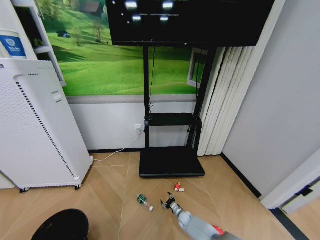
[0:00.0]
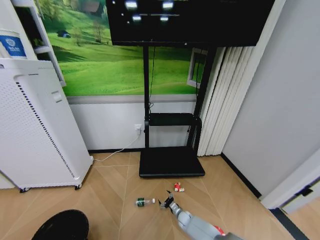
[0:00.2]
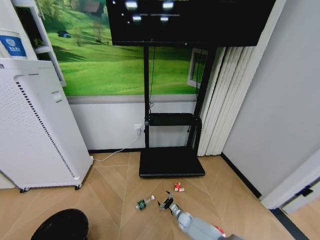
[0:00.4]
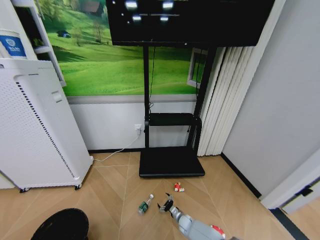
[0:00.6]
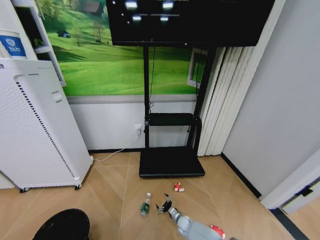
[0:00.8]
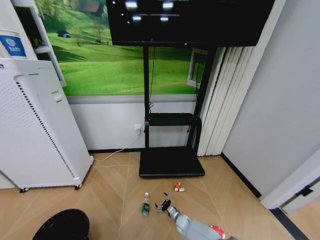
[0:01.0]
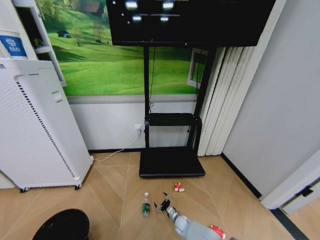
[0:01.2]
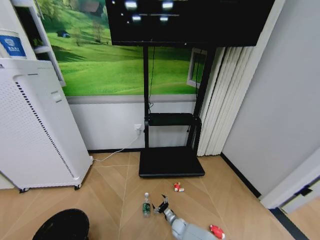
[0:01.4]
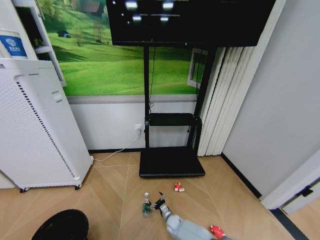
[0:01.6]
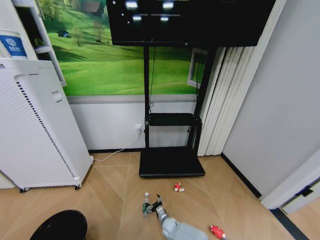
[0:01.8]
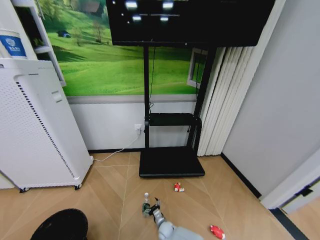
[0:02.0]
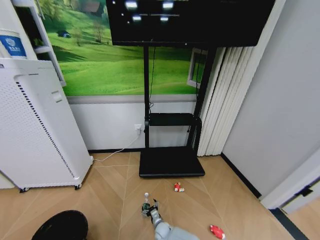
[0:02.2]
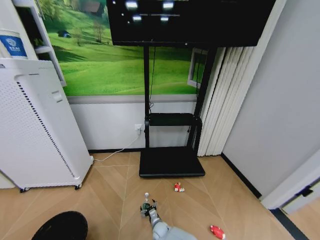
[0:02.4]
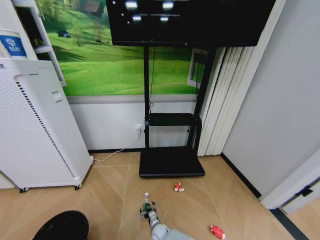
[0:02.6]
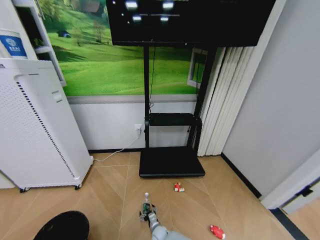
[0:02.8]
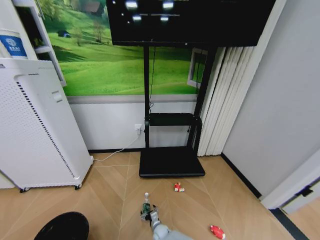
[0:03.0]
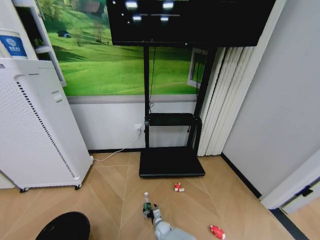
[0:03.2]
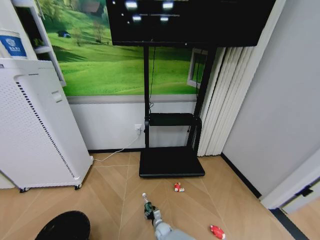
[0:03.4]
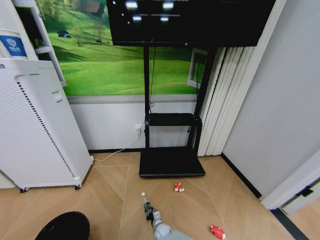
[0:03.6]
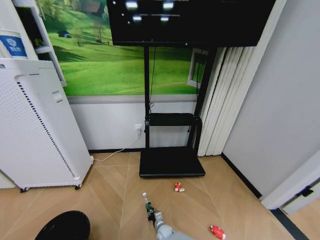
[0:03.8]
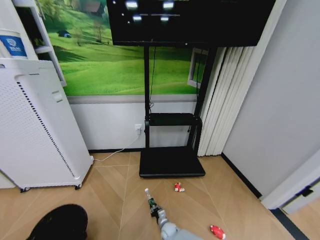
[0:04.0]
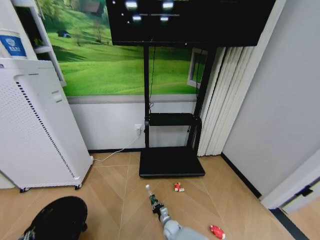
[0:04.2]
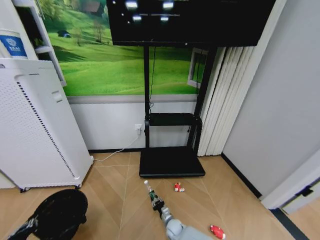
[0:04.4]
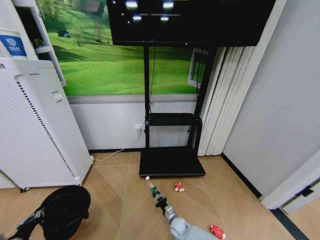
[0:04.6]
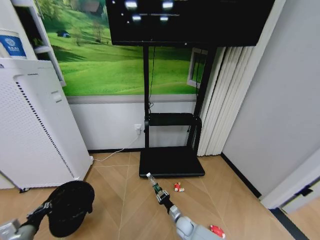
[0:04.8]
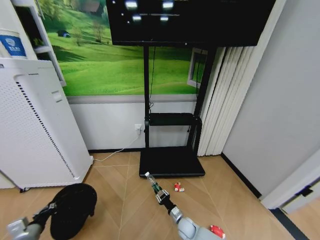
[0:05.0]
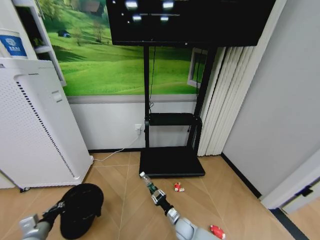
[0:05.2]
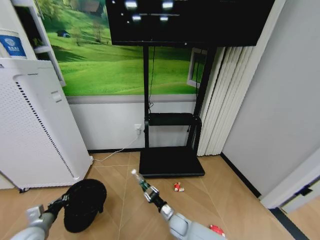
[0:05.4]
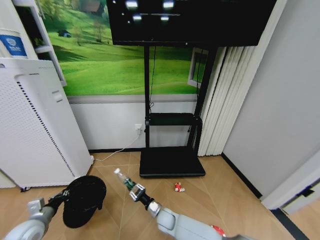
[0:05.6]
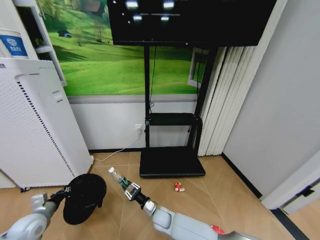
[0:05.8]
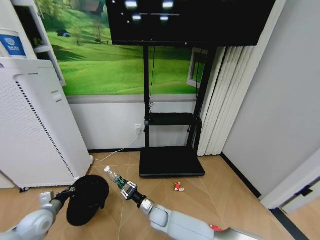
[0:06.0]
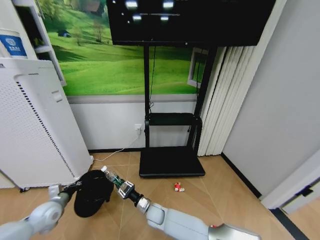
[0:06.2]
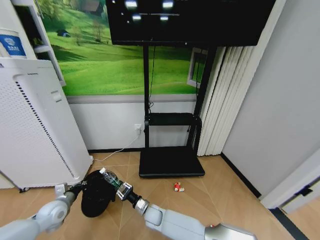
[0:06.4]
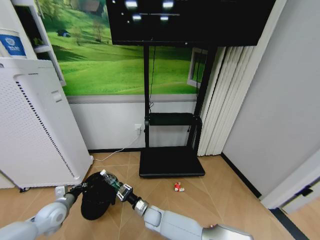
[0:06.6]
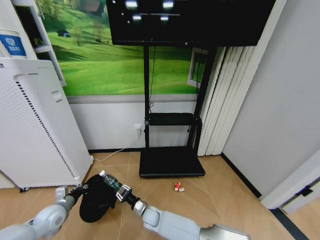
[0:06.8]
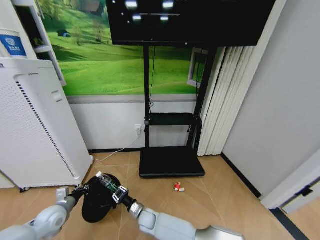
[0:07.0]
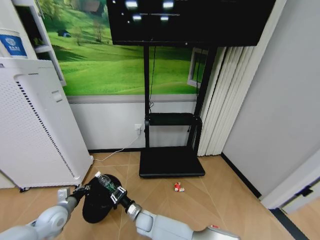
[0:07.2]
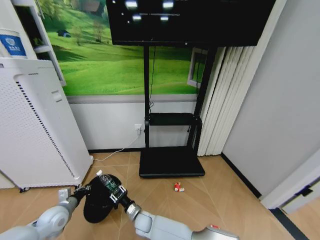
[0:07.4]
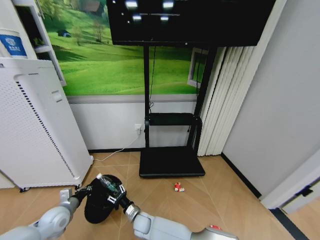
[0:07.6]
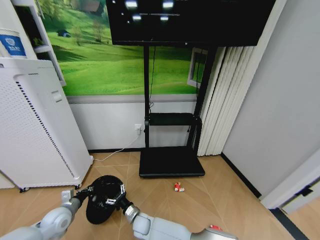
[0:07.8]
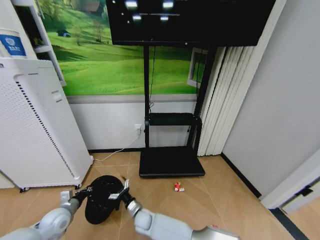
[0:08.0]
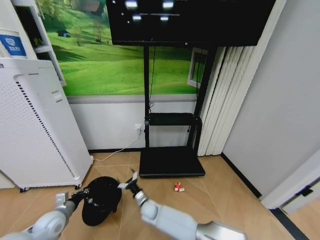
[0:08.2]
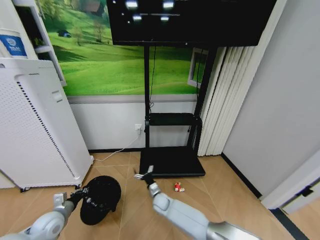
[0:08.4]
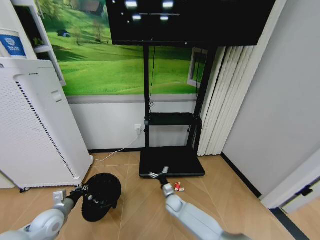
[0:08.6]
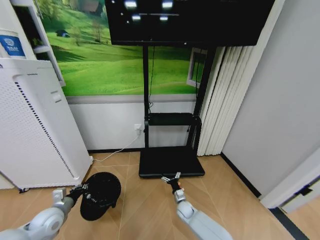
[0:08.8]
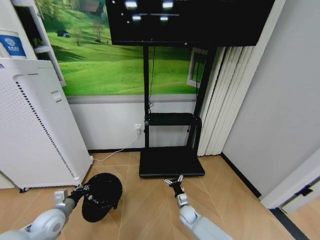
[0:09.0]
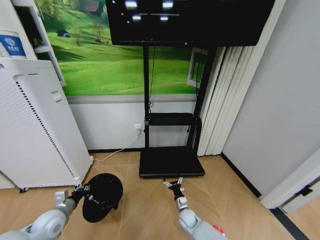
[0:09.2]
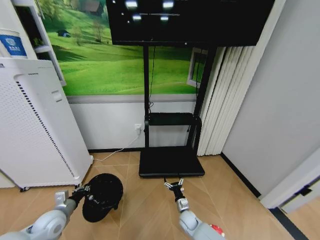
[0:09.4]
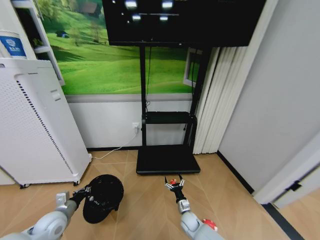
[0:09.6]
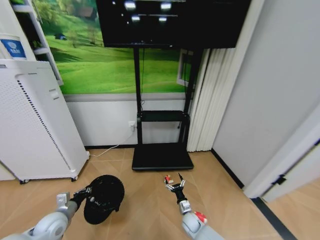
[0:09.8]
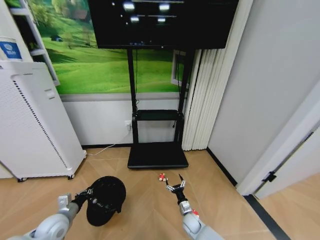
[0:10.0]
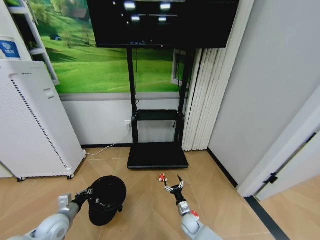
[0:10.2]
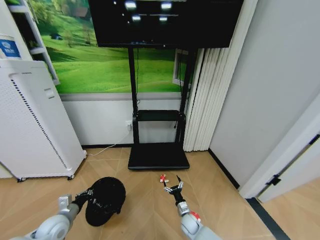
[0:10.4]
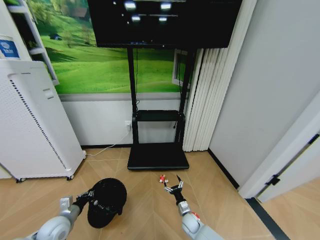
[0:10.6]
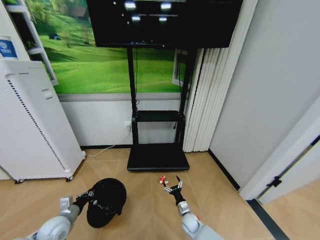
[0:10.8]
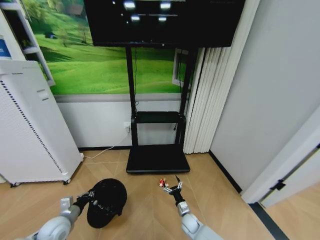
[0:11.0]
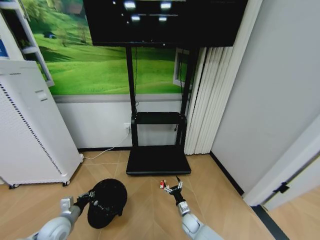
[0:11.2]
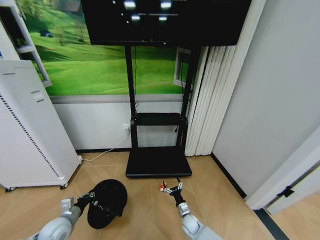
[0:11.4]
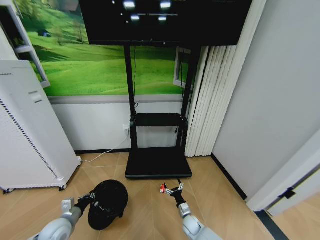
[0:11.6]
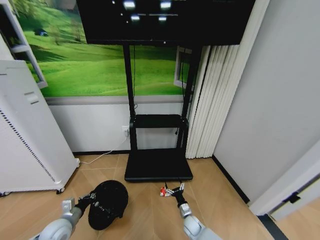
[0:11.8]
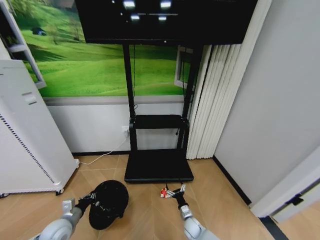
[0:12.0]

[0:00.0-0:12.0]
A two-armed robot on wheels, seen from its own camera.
Task of the whole recording: Pick up the trash bin and place the garbage on the floor into it.
0:00.0 to 0:01.6: The right gripper heads to the left, covering about 10 cm.
0:01.6 to 0:03.0: The right gripper goes about 10 cm to the left.
0:03.0 to 0:04.4: The right gripper is displaced to the right by about 5 cm, and closes up; the left gripper travels forward and upward by roughly 10 cm.
0:04.4 to 0:06.0: The left gripper shifts approximately 20 cm forward. Meanwhile the right gripper goes some 15 cm upward and to the left.
0:06.0 to 0:07.6: The right gripper goes some 10 cm to the left, and opens up; the left gripper goes some 5 cm to the right.
0:07.6 to 0:09.0: The right gripper is displaced to the right by roughly 25 cm, and opens up.

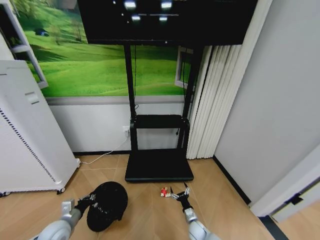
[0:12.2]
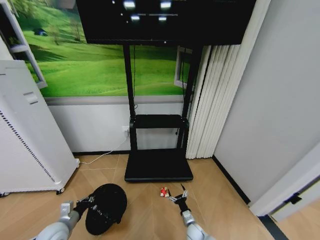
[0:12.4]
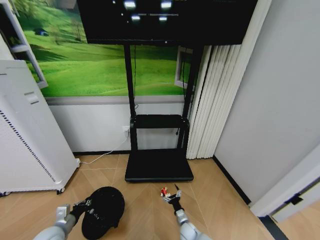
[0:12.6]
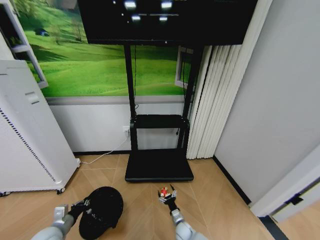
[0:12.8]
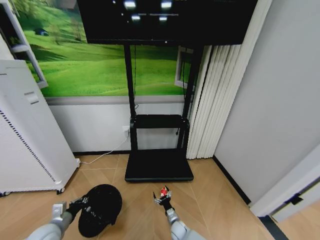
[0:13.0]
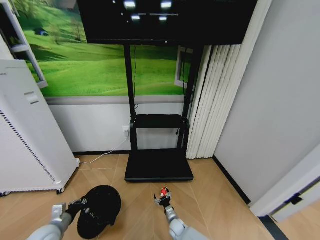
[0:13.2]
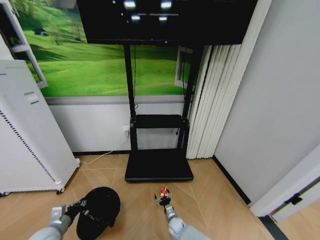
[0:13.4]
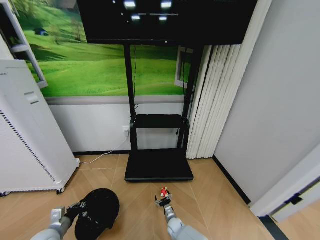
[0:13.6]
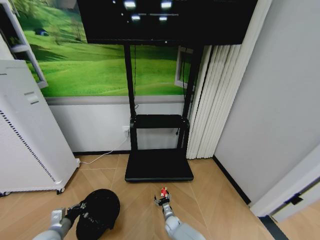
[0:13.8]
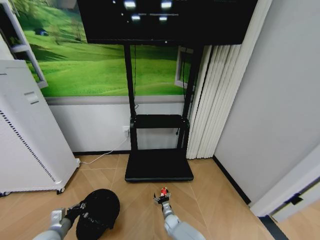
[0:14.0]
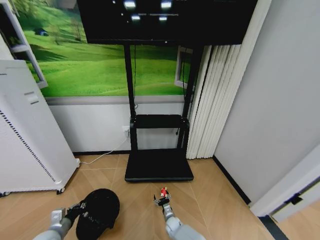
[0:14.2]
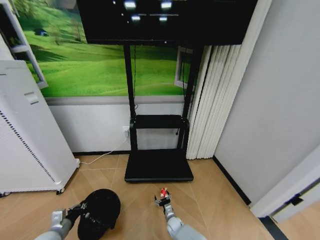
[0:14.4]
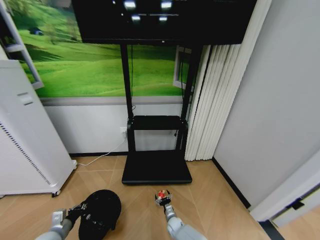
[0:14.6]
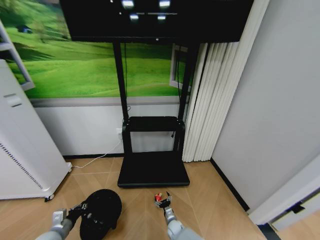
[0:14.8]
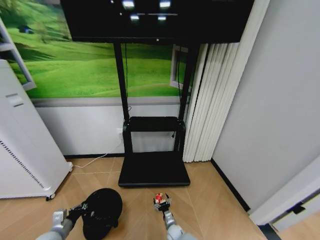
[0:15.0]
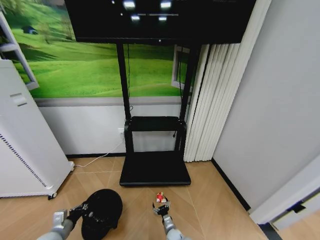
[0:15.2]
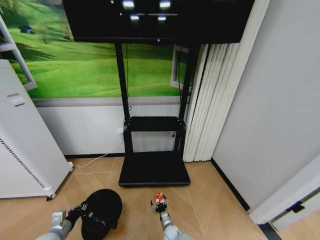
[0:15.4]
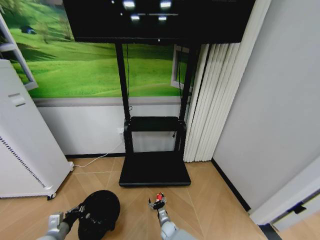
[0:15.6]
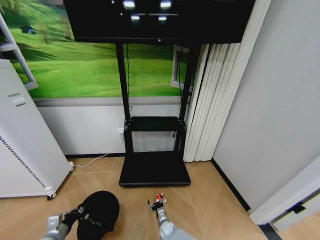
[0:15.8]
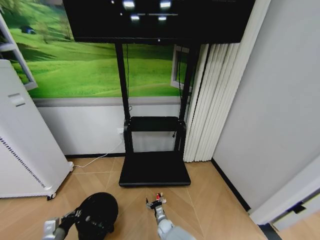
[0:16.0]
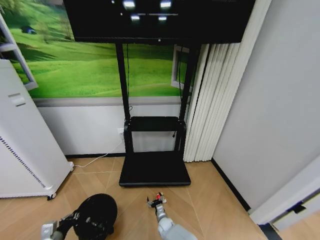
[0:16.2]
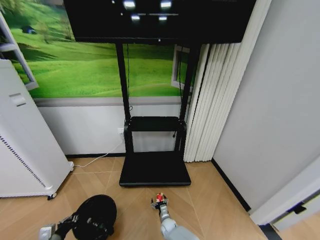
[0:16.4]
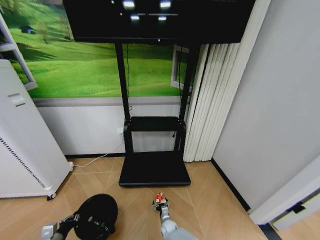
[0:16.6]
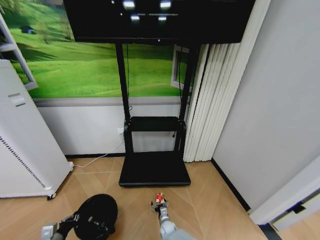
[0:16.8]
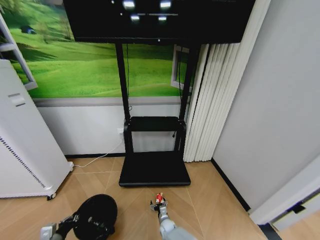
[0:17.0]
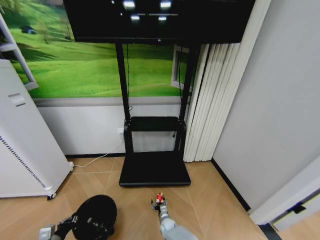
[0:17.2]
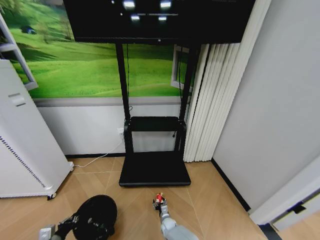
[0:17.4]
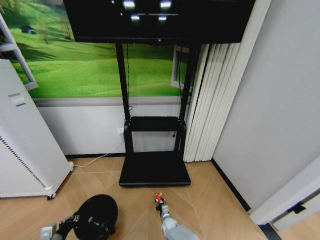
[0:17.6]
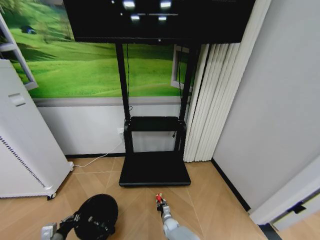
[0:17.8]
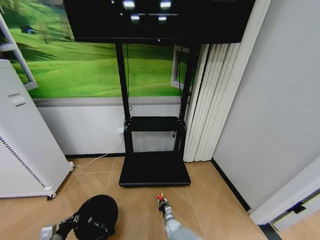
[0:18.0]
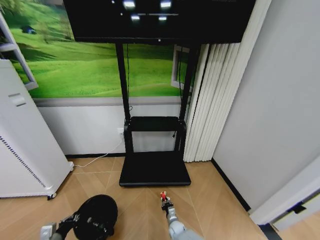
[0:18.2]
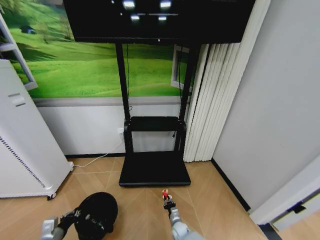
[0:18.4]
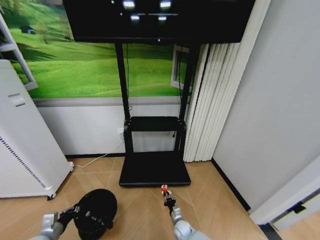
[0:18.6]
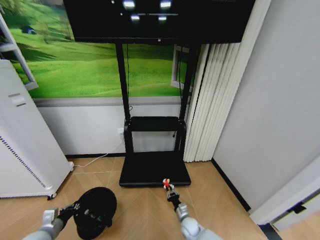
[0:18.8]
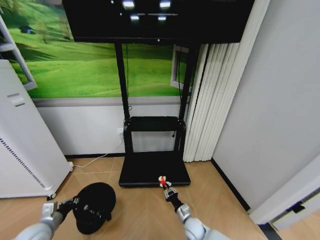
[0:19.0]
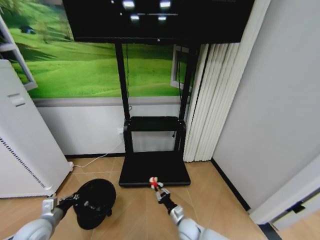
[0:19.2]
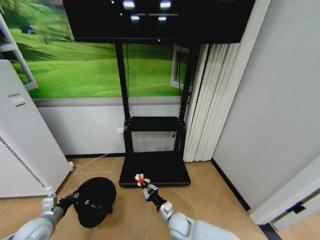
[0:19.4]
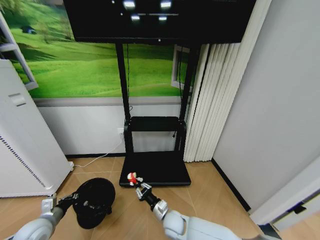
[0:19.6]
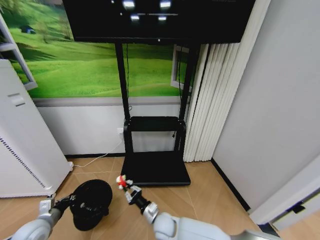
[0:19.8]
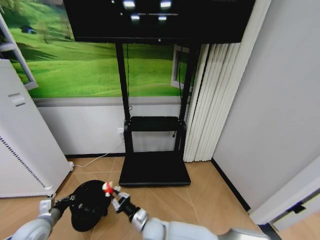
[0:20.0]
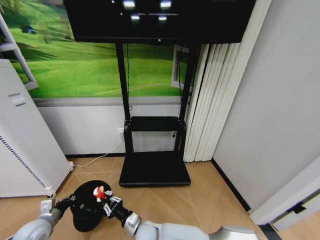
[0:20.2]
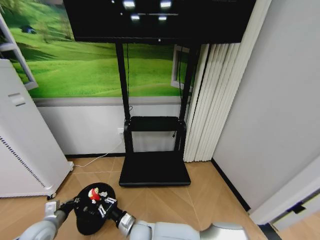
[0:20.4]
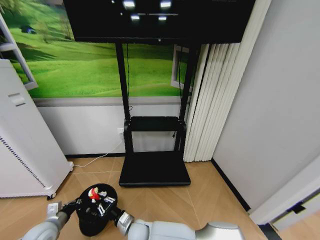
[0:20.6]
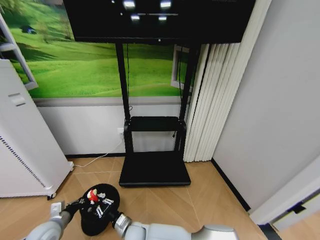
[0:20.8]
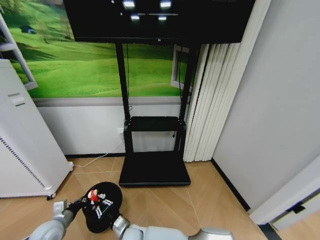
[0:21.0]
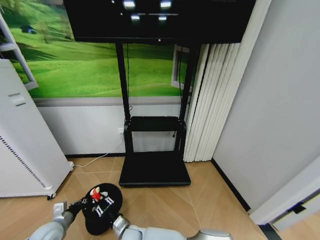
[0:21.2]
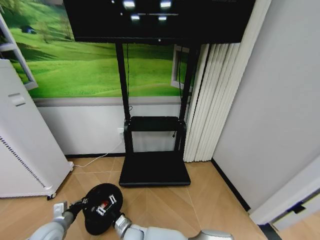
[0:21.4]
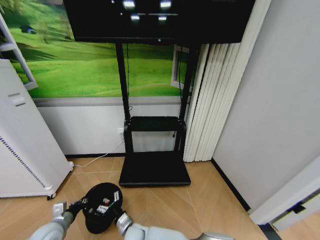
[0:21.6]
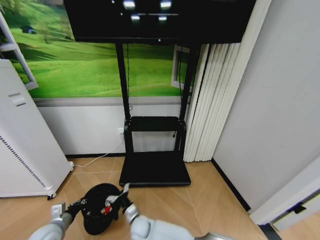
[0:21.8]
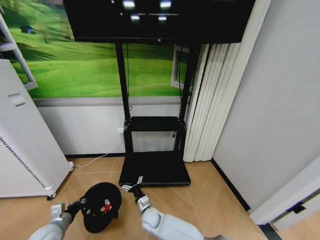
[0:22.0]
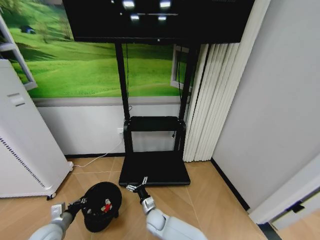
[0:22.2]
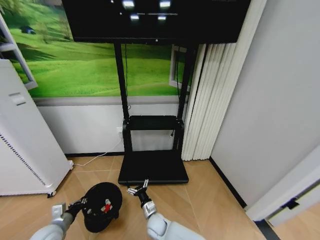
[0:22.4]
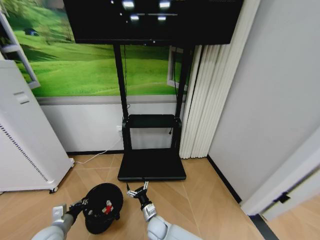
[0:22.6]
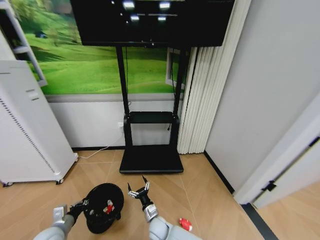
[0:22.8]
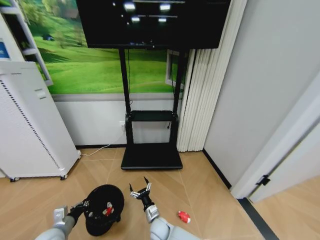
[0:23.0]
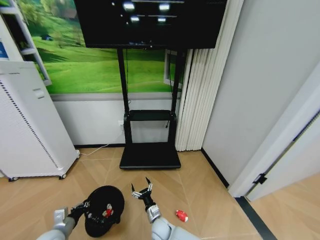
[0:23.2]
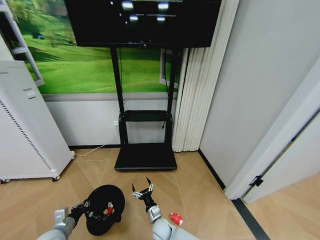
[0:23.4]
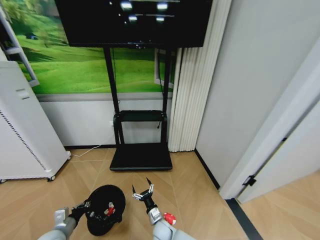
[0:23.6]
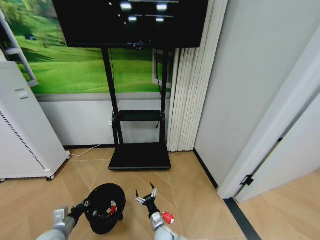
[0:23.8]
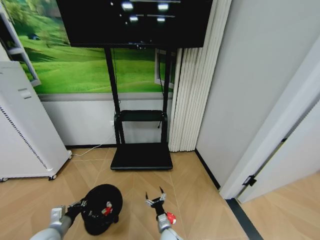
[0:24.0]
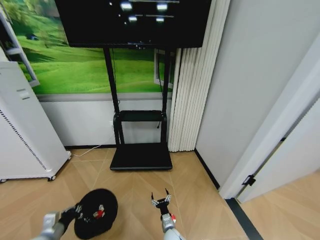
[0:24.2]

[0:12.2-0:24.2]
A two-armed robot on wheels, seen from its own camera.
Task of the whole recording: Pick up the trash bin and place the garbage on the floor into it.
0:12.2 to 0:13.8: The right gripper is displaced to the left and downward by about 10 cm.
0:13.8 to 0:15.2: The right gripper moves some 5 cm.
0:16.6 to 0:18.2: The right gripper closes its fingers.
0:18.2 to 0:19.8: The right gripper shifts some 25 cm upward and to the left; the left gripper goes about 10 cm forward and upward.
0:19.8 to 0:21.2: The right gripper goes some 15 cm to the left.
0:21.2 to 0:22.6: The right gripper shifts some 10 cm to the right, and opens its fingers.
0:22.6 to 0:24.2: The right gripper is displaced to the right and downward by about 10 cm.
